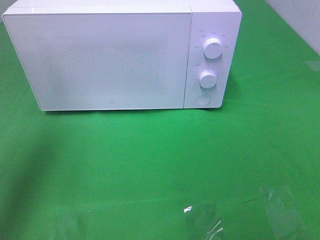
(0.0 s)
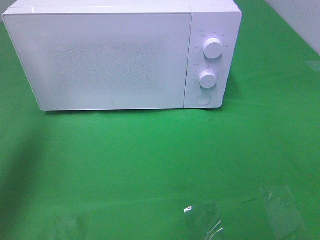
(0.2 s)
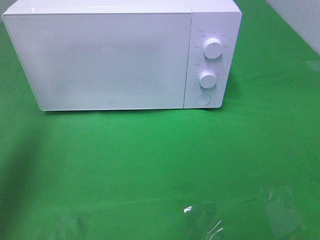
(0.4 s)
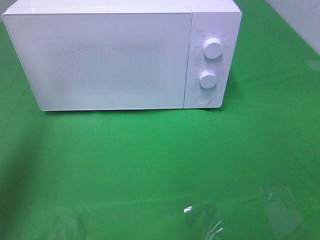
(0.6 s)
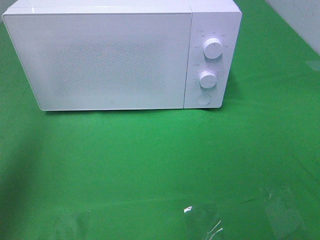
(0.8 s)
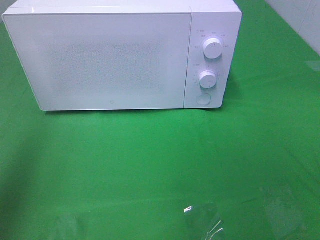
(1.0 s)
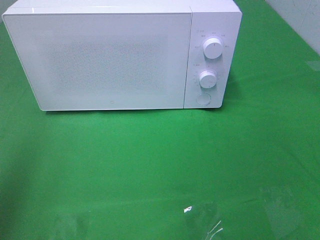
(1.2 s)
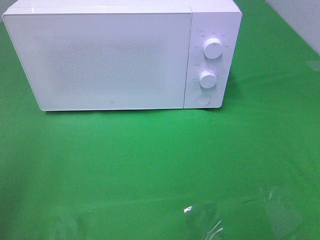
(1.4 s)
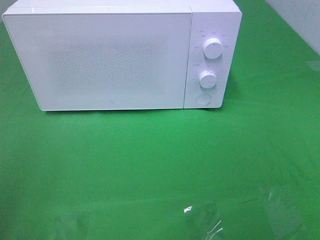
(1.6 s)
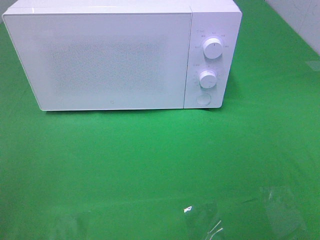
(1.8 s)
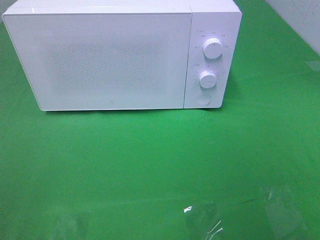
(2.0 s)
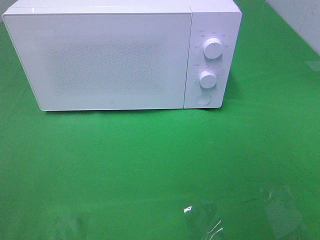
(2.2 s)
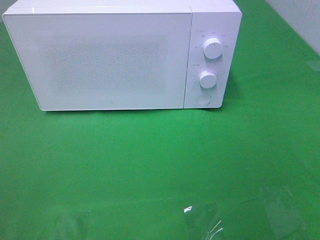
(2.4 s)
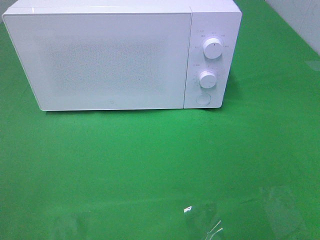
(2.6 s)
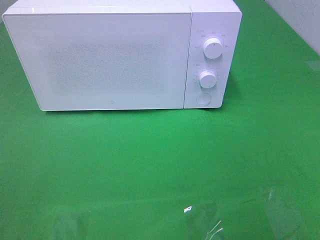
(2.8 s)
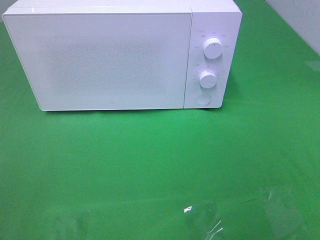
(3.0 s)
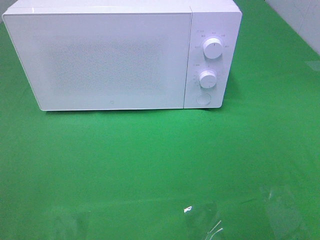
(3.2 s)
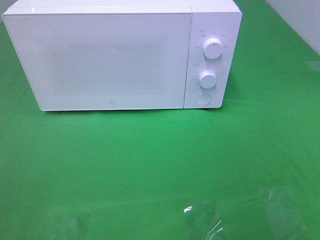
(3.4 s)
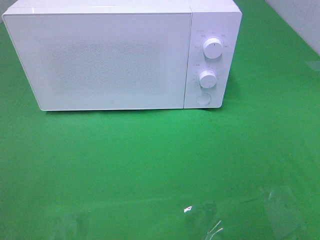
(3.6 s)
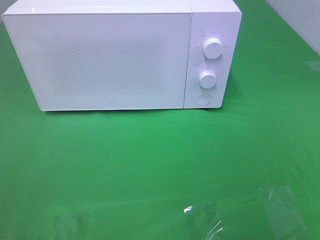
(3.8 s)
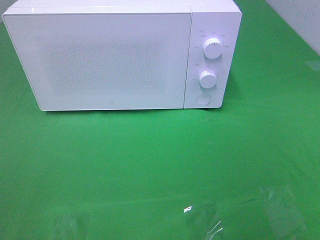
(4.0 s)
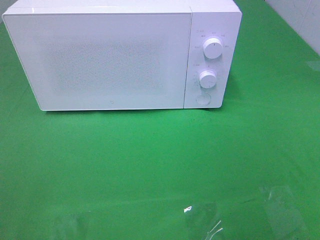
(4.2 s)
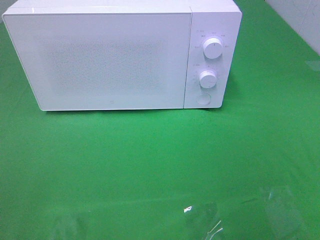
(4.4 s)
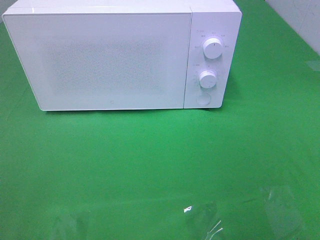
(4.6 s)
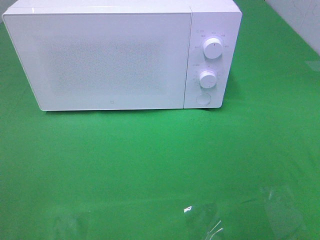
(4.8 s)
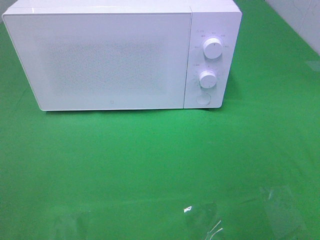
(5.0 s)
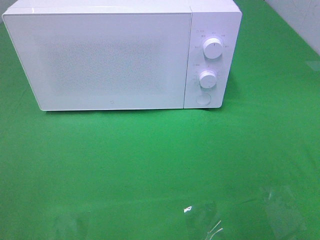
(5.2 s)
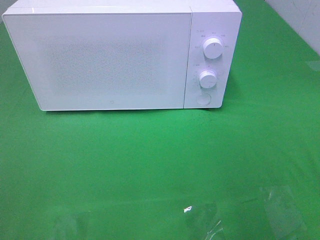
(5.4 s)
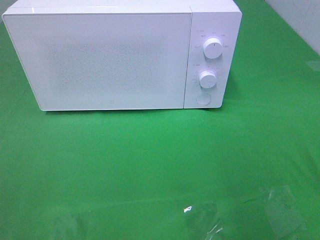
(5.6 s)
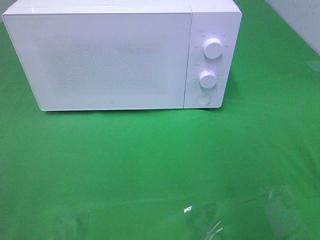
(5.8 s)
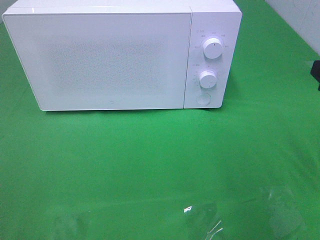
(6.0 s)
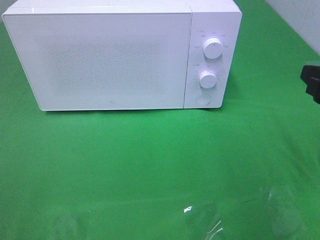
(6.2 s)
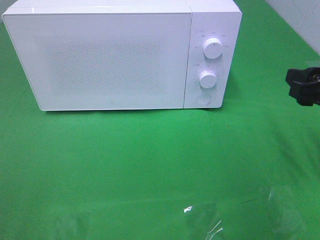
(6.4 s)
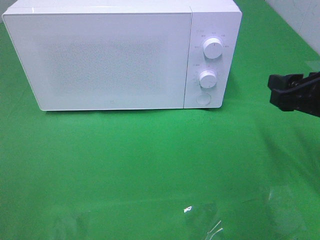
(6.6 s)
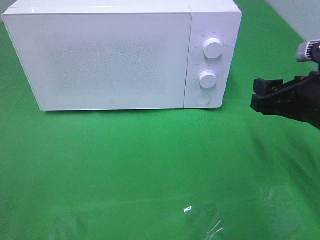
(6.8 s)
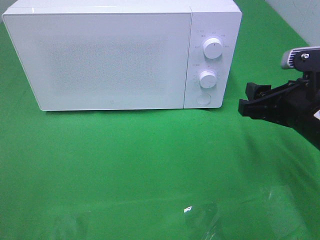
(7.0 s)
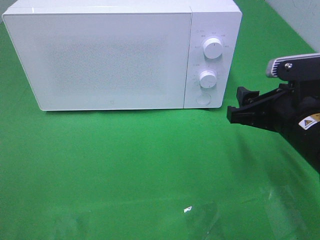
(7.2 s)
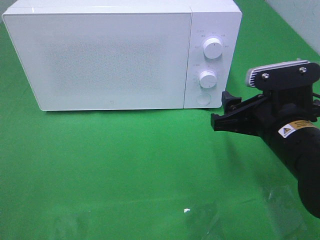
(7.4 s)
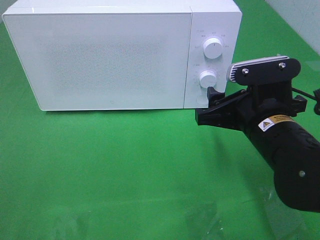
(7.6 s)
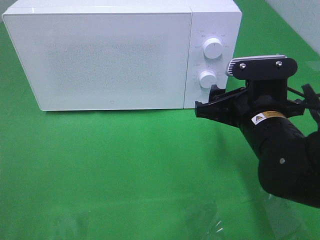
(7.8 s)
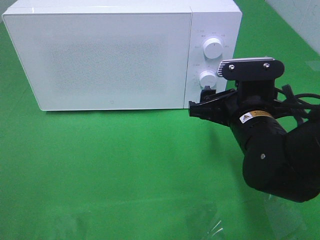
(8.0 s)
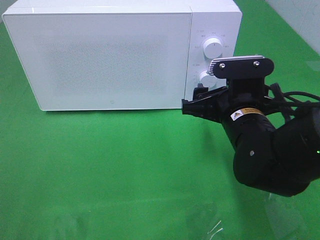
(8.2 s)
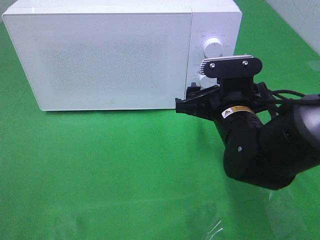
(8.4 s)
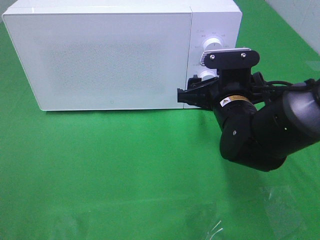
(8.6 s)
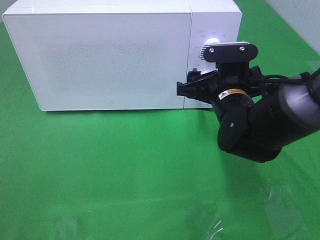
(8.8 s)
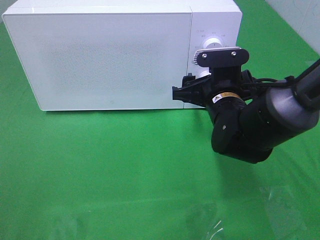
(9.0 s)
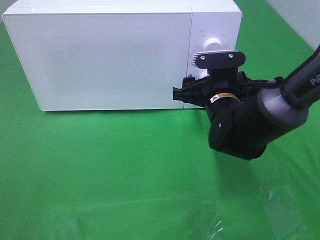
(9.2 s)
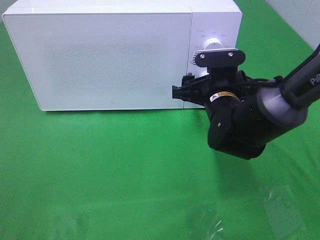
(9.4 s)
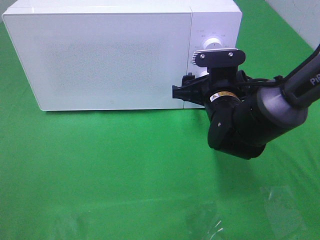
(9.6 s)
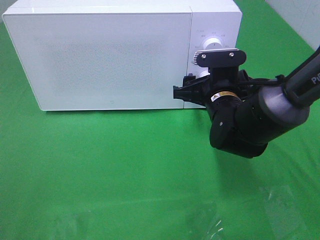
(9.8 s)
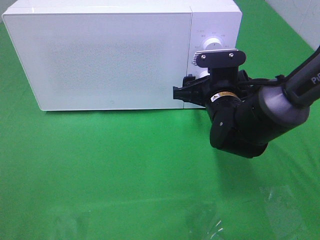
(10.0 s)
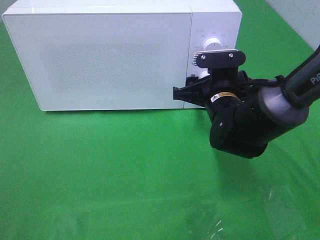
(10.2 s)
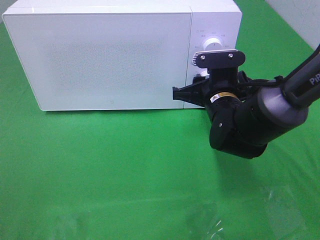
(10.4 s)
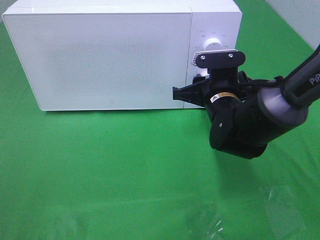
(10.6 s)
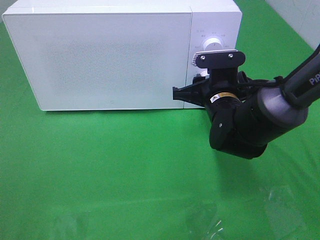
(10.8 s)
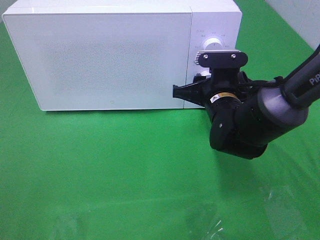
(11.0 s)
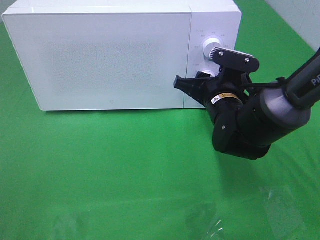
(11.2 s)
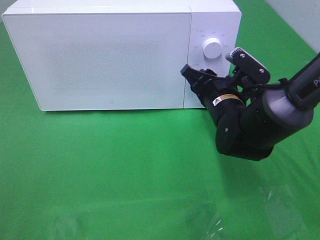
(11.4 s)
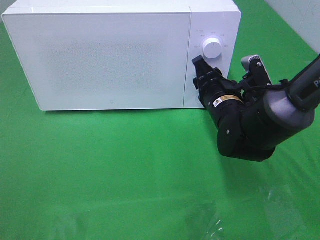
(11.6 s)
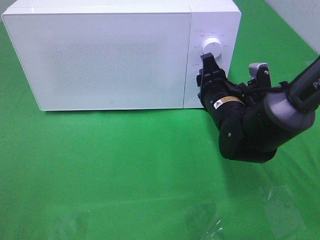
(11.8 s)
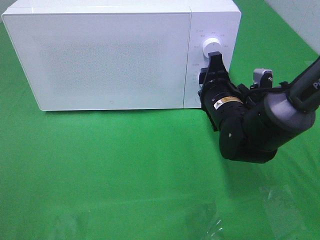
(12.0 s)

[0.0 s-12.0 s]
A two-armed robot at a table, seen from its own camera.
Task of the whole recording: Heat the burger.
0.0 to 1.6 s: The left gripper is displaced backward by approximately 20 cm.
6.0 to 7.6 s: The right gripper is displaced to the left and downward by approximately 15 cm.
7.6 to 9.0 s: The right gripper is displaced forward by some 10 cm.
9.0 to 10.4 s: The right gripper closes.

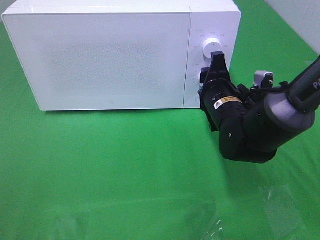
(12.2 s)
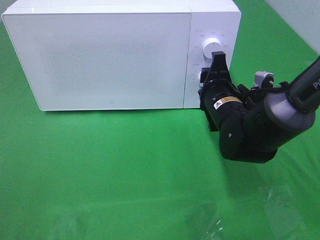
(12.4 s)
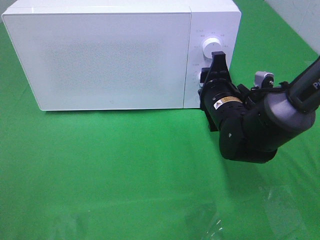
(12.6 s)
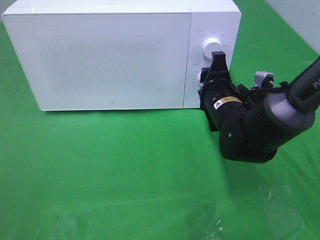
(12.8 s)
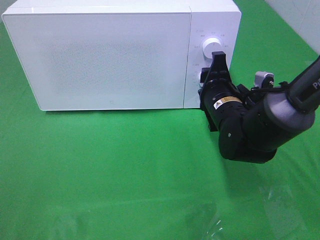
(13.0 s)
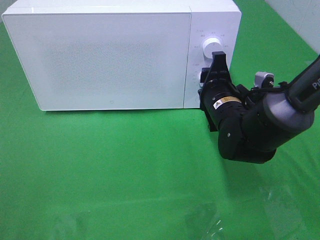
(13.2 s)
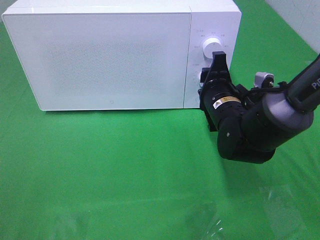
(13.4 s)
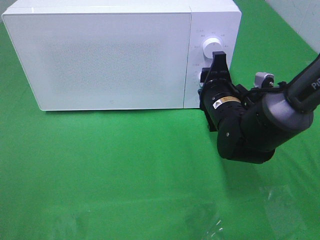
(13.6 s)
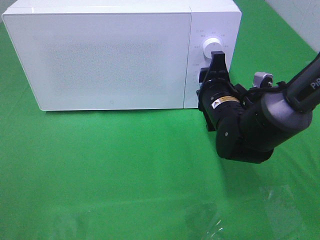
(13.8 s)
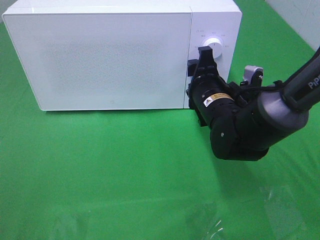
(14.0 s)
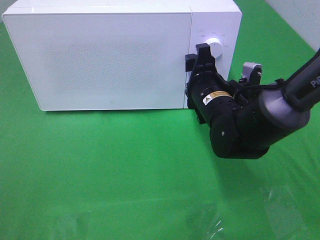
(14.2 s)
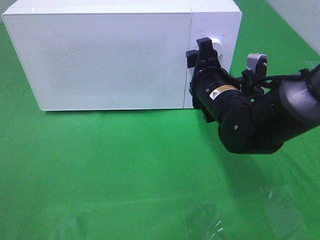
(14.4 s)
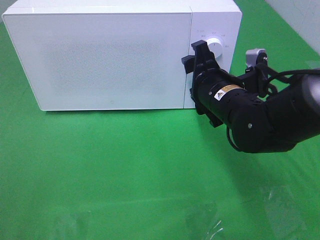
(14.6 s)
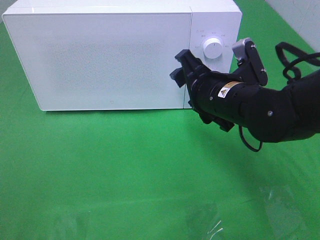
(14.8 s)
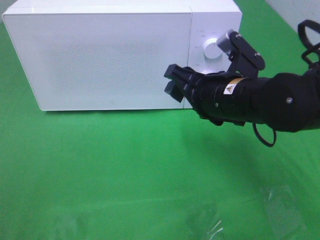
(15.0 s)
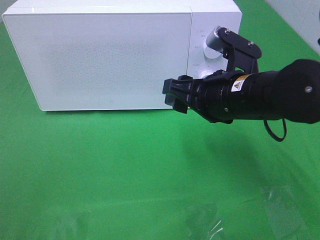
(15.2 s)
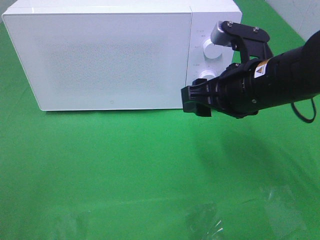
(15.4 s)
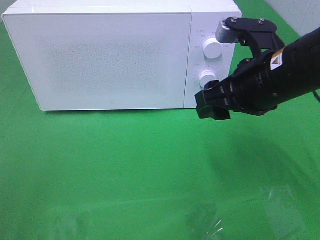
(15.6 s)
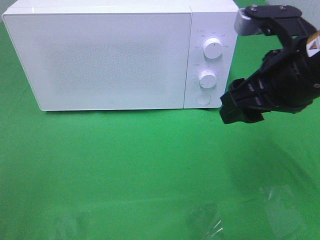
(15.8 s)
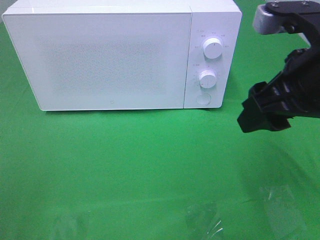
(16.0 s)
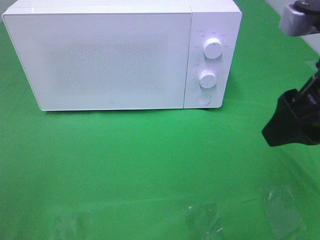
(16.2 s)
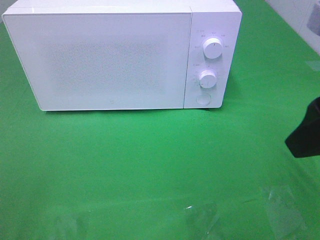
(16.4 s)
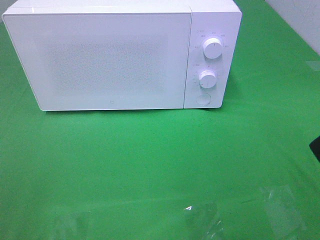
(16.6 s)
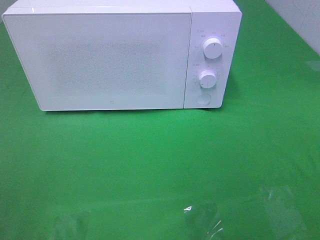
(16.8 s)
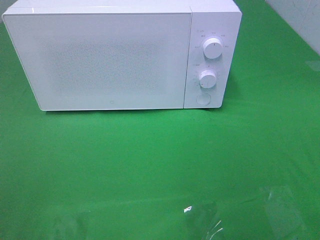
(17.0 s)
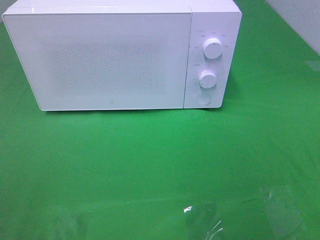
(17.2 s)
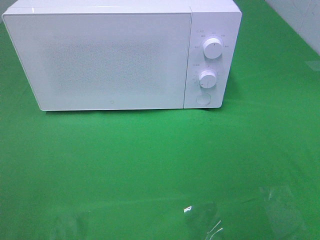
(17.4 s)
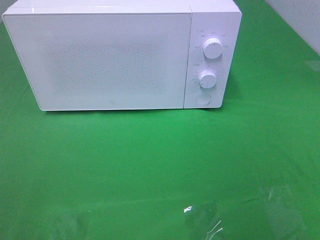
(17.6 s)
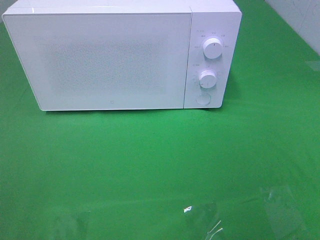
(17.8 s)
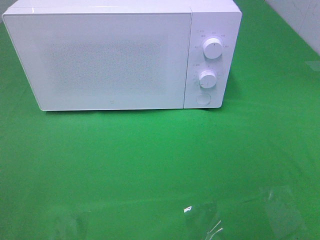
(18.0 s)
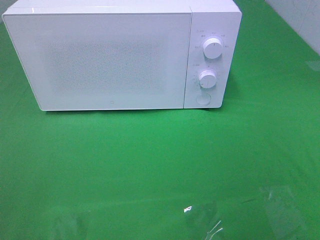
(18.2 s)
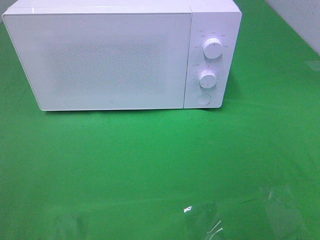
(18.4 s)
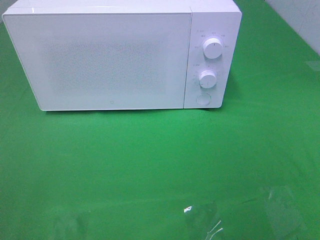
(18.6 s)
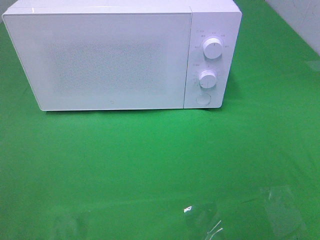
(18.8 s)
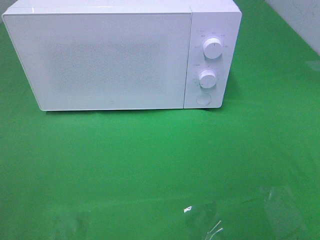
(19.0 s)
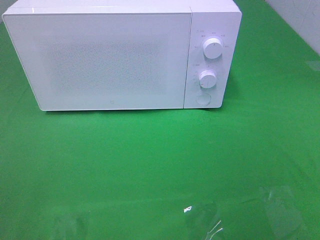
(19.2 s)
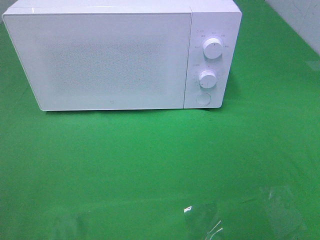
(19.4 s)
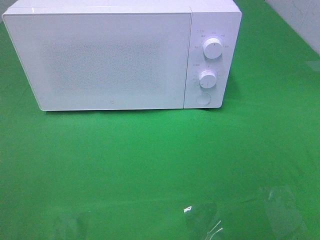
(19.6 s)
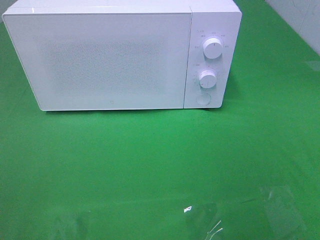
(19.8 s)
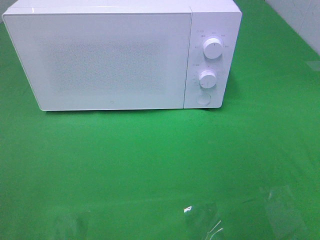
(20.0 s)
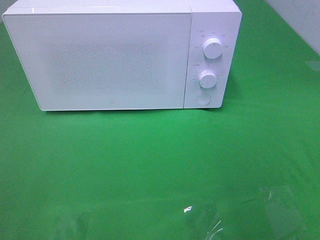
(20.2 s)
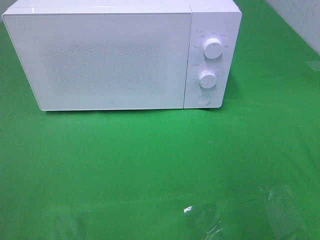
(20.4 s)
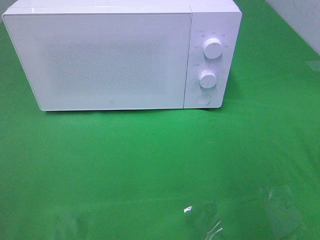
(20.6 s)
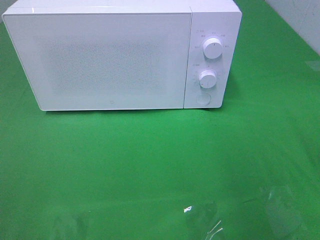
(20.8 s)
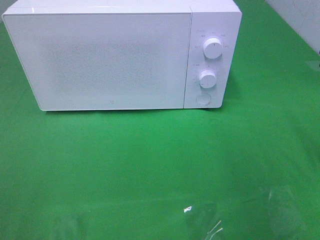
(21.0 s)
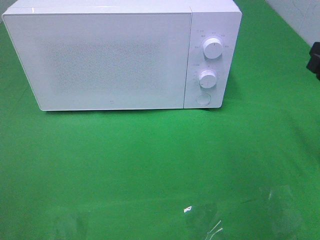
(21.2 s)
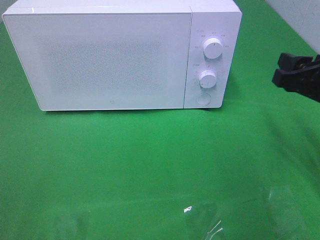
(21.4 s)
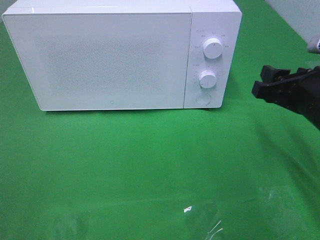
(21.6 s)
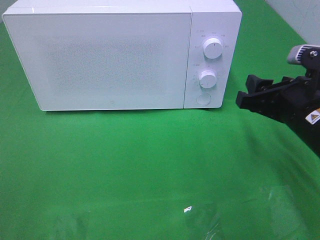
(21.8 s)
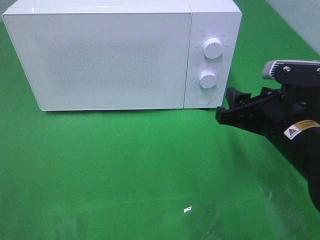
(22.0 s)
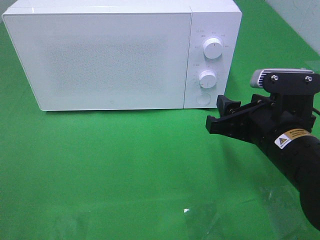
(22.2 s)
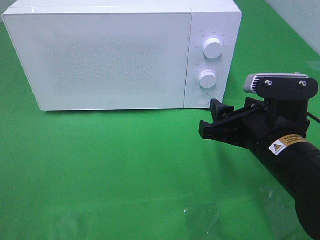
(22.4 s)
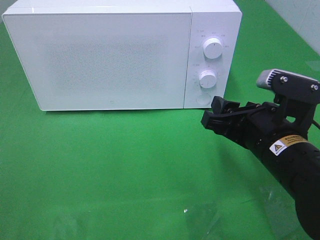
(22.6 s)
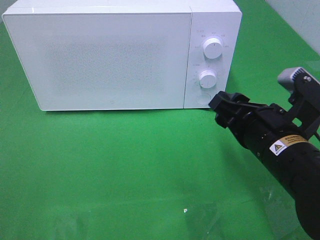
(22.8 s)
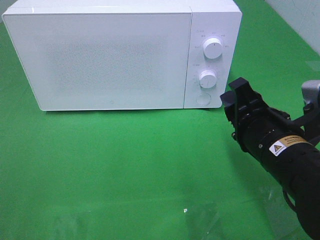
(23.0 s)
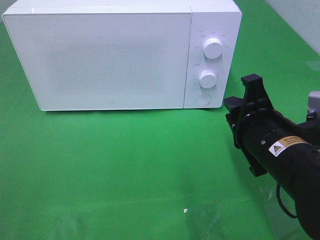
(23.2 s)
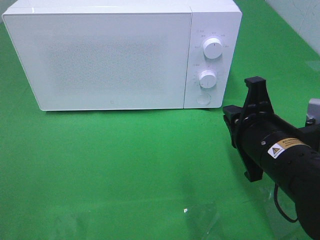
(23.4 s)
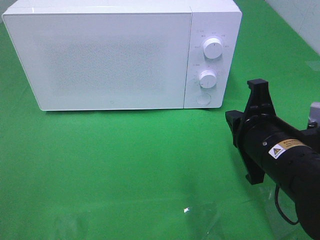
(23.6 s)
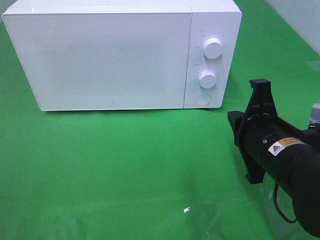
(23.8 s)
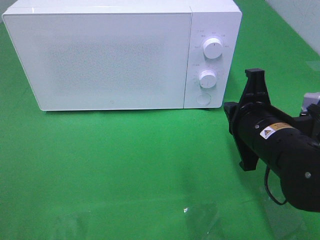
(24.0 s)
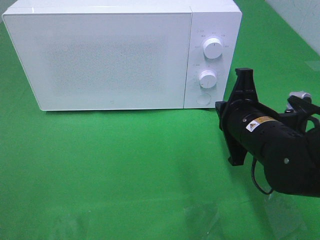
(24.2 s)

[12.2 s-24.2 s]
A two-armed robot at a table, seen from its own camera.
Task of the whole recording: Heat the burger.
Step, 12.2 to 14.4 s: Right hand: twist timer button.
12.2 to 13.8 s: The two grippers keep their place.
13.8 to 15.2 s: The right gripper travels upward and backward by about 10 cm.
15.2 to 16.6 s: The right gripper travels upward, backward and to the right by roughly 20 cm.
21.2 to 22.6 s: The right gripper shifts some 15 cm to the left and downward.
22.6 to 24.2 s: The right gripper closes its fingers.
